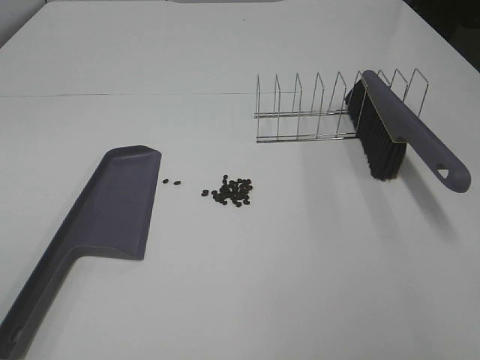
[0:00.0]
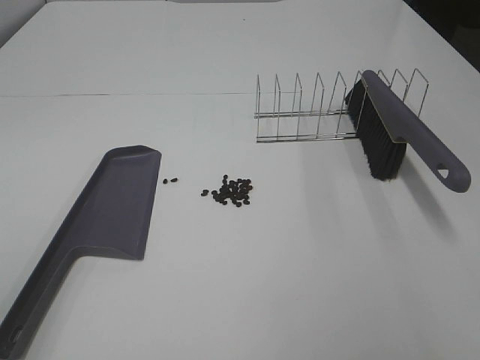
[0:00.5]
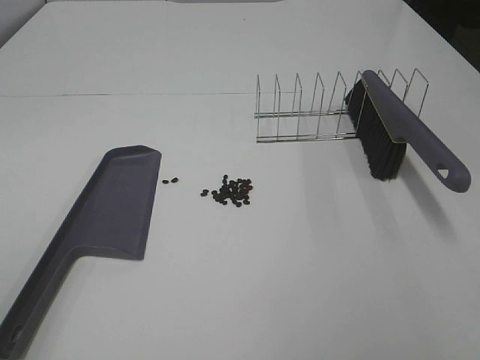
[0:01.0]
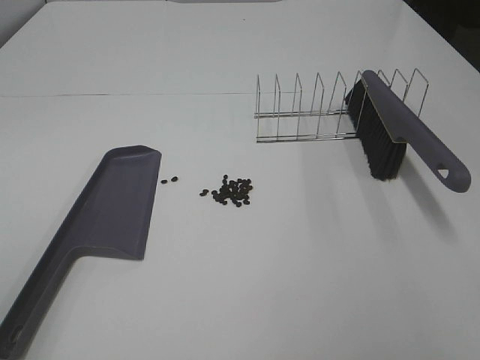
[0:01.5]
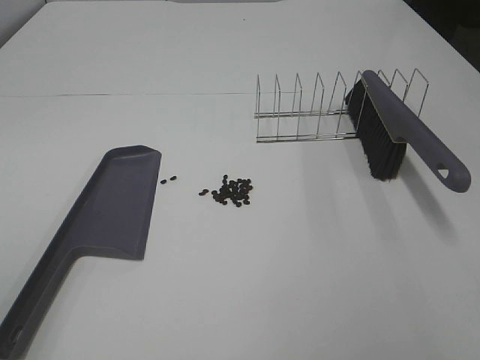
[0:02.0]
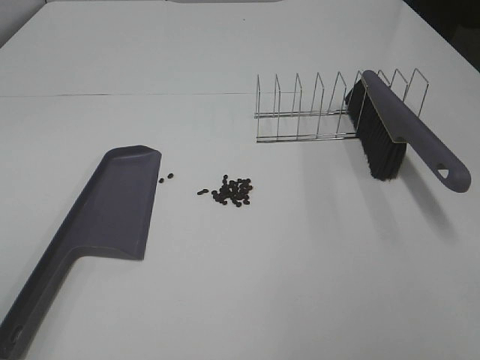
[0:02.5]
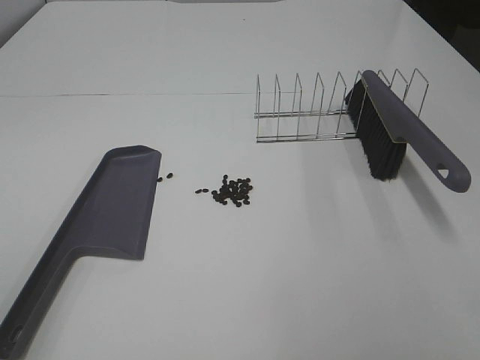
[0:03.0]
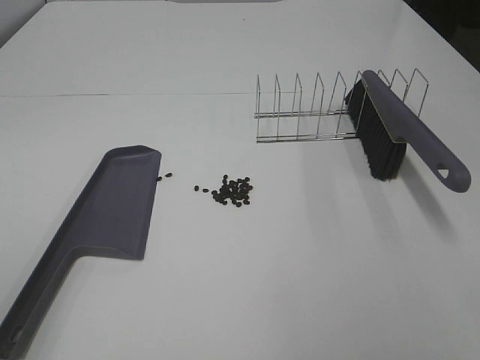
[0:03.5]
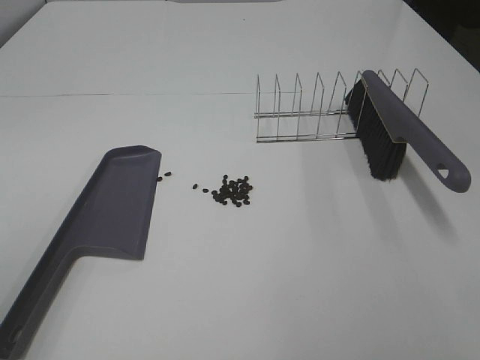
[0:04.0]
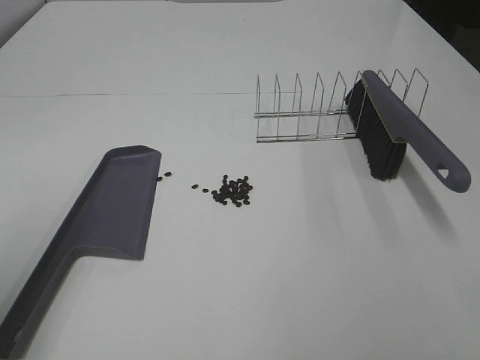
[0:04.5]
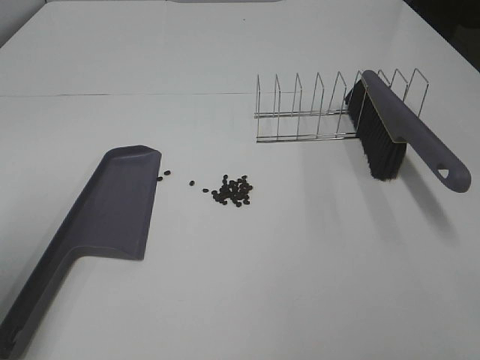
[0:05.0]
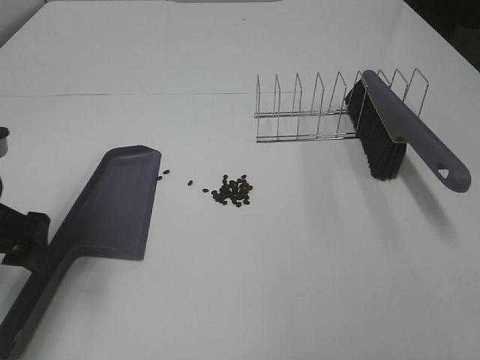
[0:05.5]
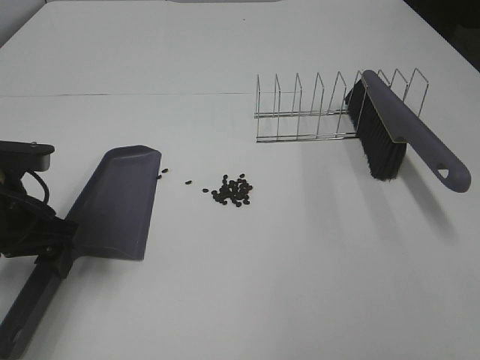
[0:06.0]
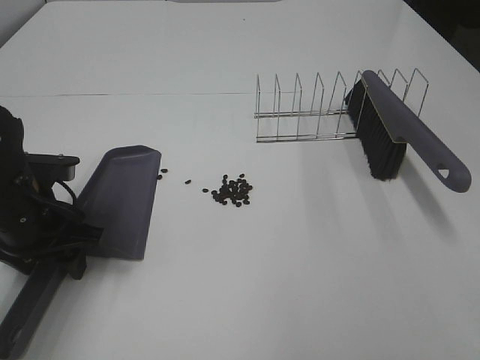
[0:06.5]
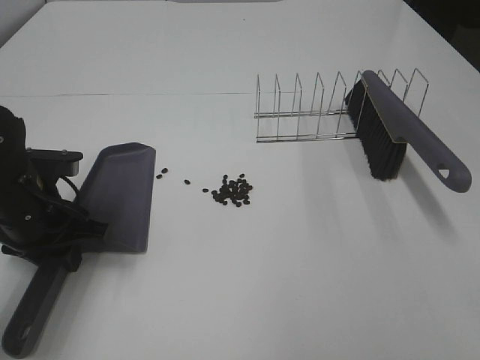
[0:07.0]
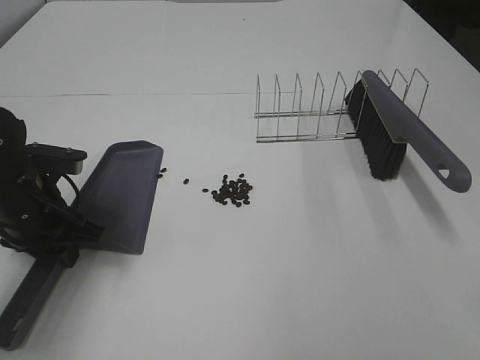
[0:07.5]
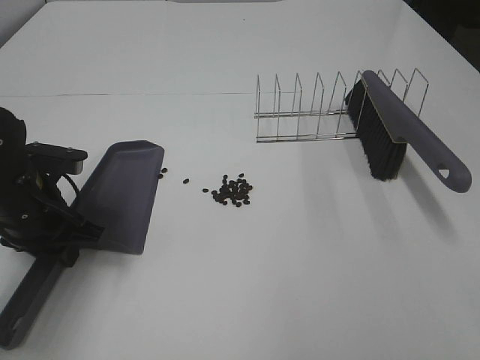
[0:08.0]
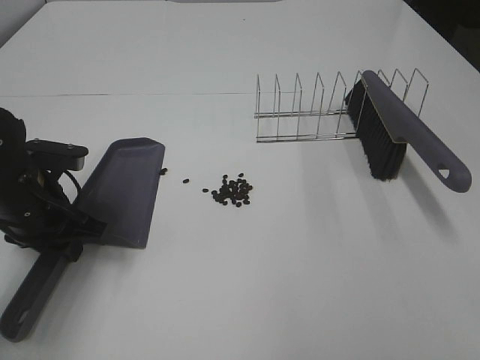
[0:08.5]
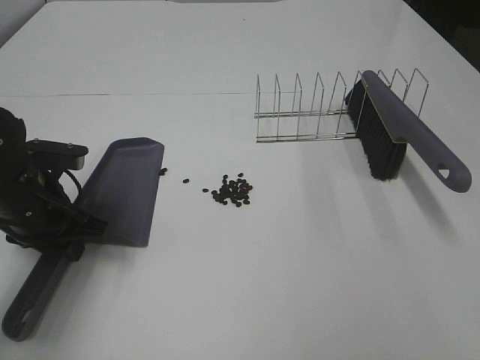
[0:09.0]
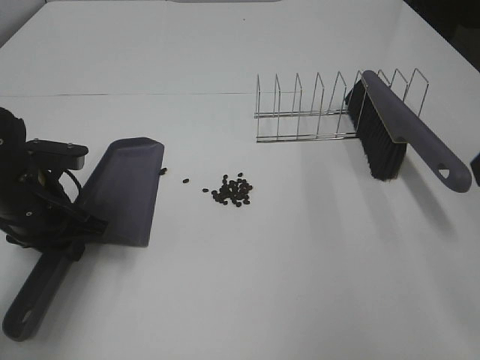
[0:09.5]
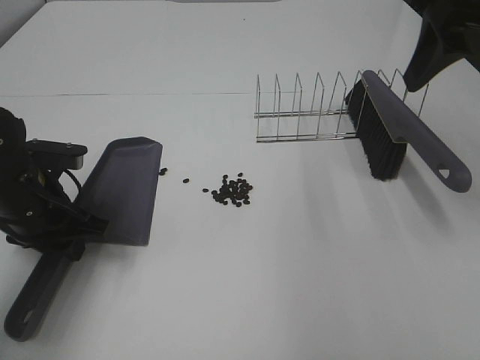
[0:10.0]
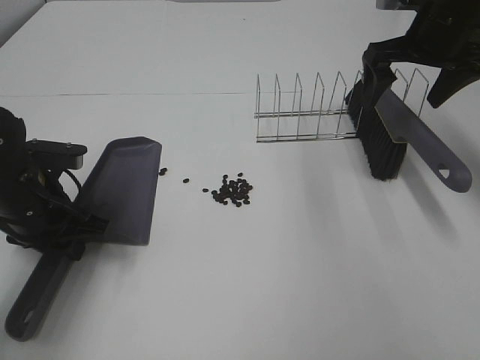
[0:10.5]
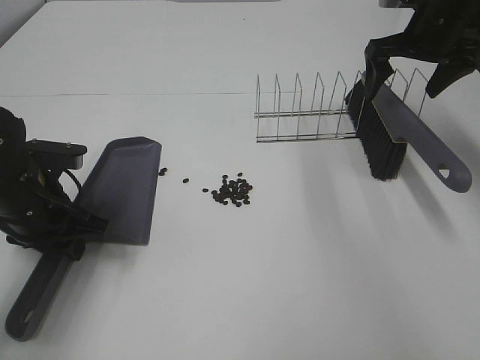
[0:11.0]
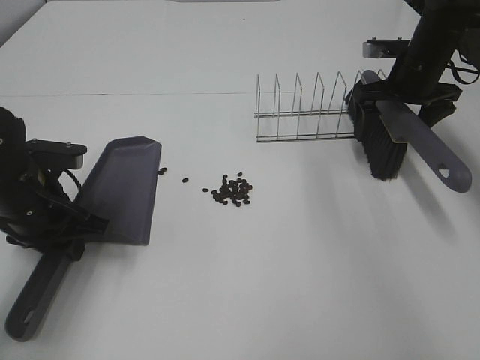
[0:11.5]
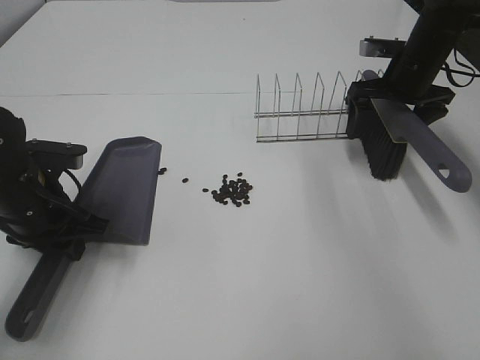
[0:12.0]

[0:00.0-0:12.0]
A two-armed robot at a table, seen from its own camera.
Task of the whole recording: Sweep Coffee Bean.
Step, 0.0 to 7.0 s: Left hand: grab the dustpan.
4.0 to 6.0 s: The left gripper shifts about 25 cm forward and downward.
6.0 to 8.0 s: The left gripper closes.
8.0 to 10.0 s: The right gripper shifts roughly 30 cm forward.
10.0 to 12.0 s: The right gripper heads downward and forward, covering some 25 cm.

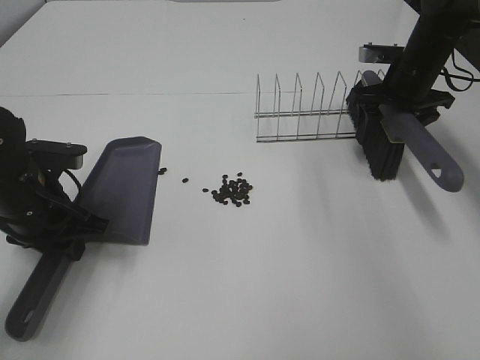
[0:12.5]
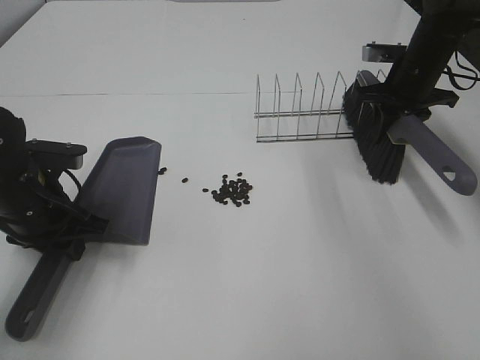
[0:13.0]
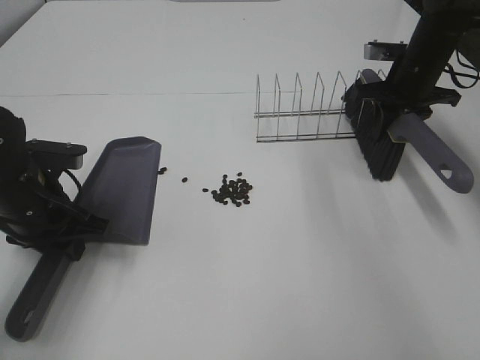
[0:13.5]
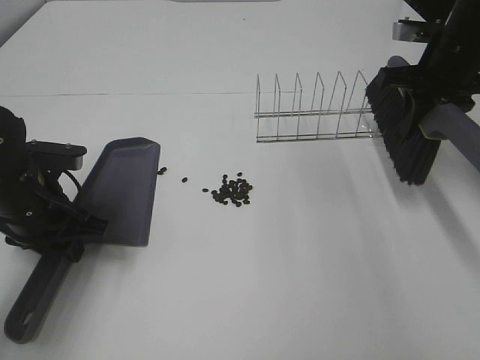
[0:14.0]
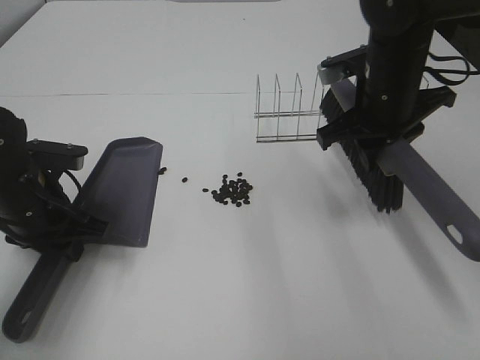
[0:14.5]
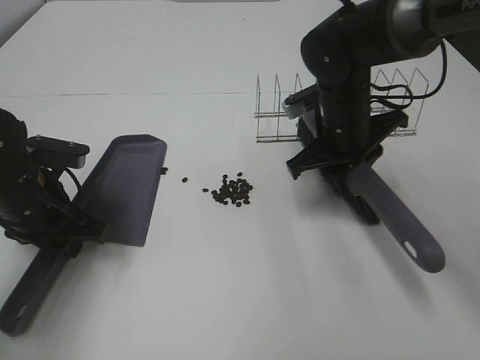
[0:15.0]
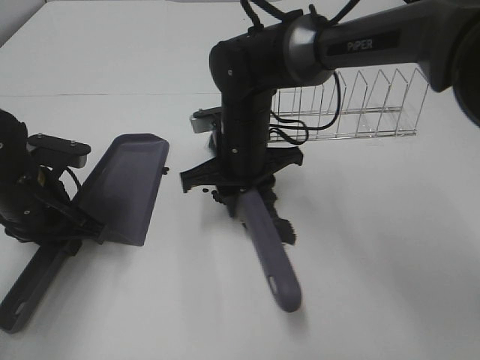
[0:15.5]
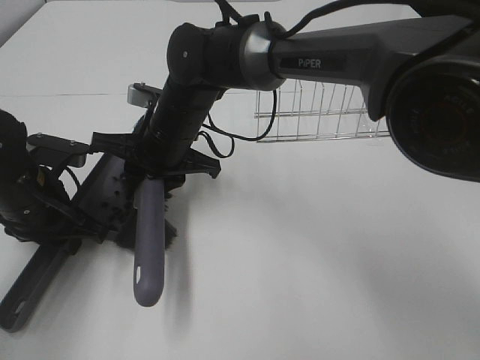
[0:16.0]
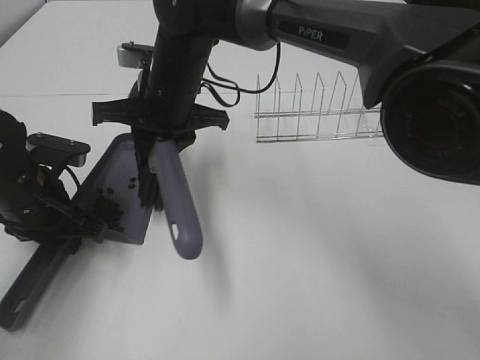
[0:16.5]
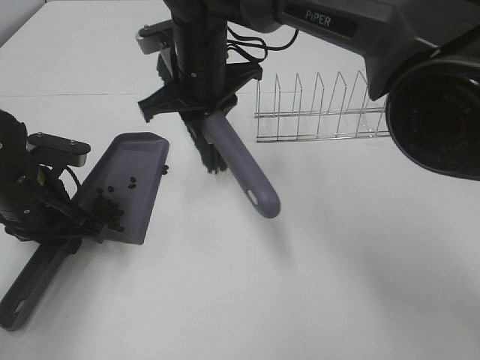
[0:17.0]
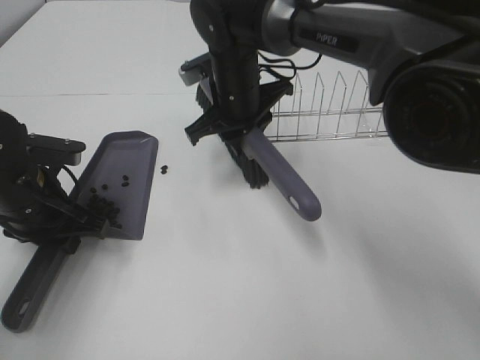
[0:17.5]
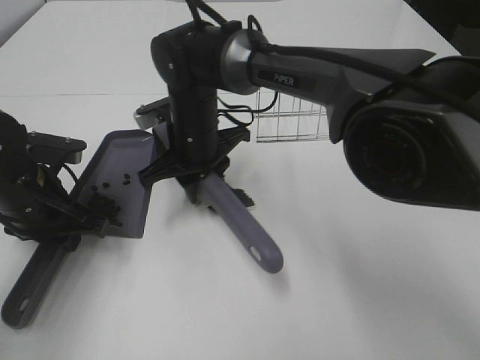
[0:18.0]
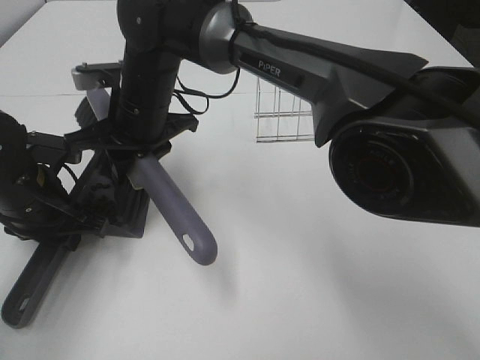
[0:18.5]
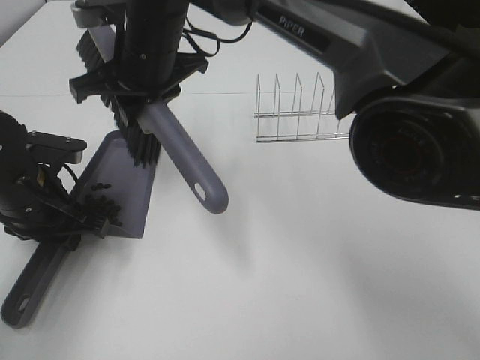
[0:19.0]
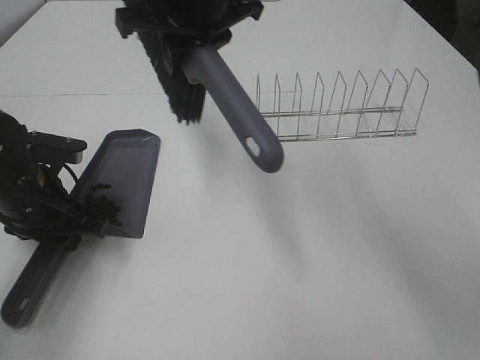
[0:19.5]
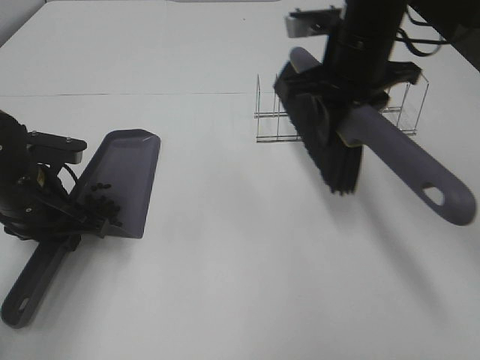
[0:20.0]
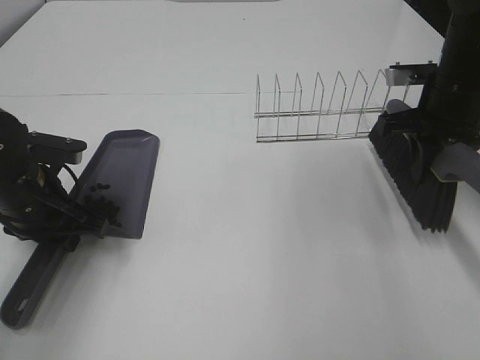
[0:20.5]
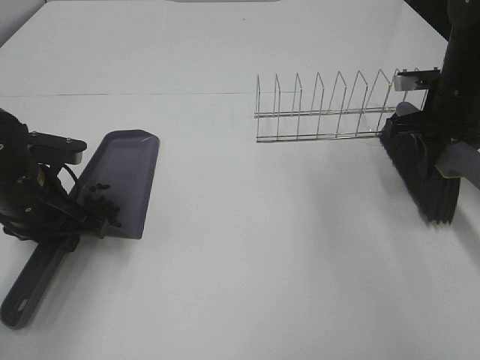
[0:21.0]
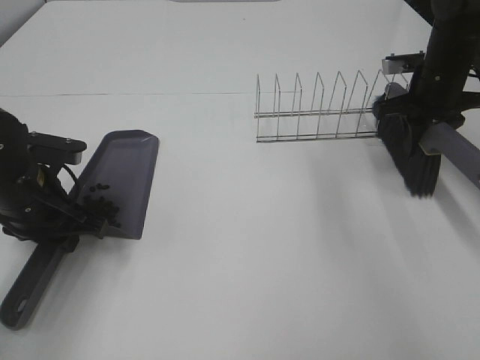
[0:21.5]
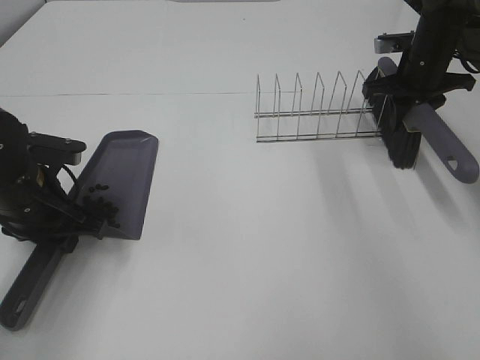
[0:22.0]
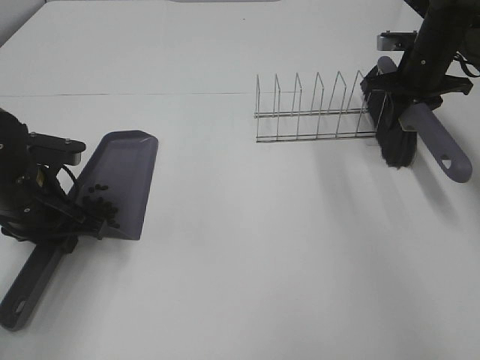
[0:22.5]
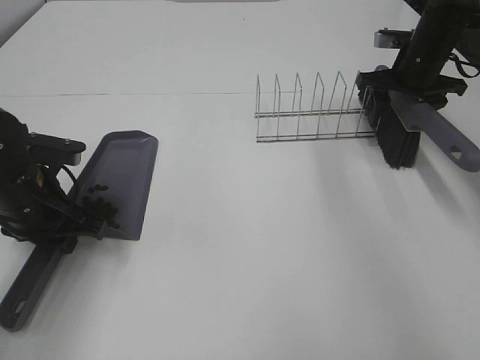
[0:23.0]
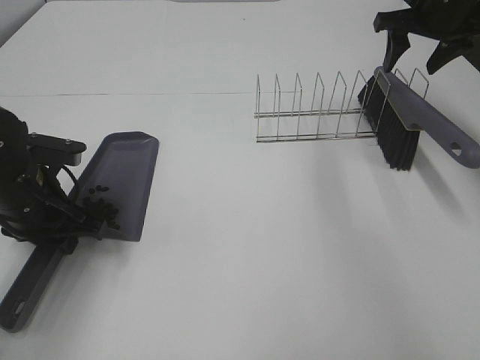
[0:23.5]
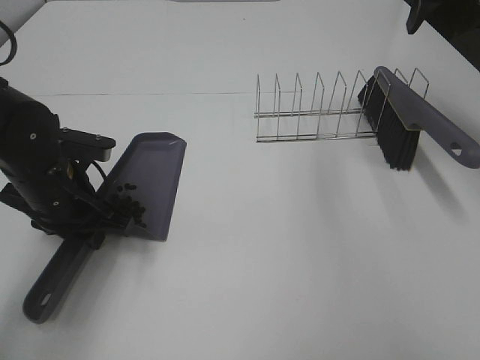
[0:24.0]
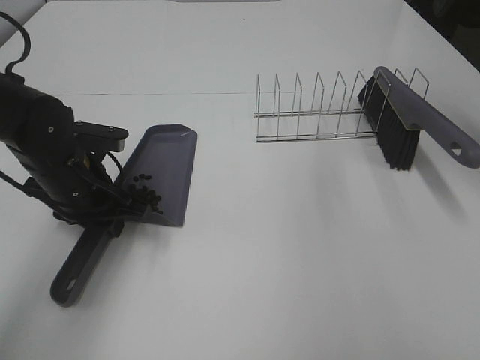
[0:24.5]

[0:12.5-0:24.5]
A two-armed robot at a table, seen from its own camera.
Task of the whole recording: Sweep Coffee Bean.
Step, 13.0 to 18.5 s: Right hand:sweep the coffee beans into the dustpan.
Step, 19.0 to 23.0 s: Right hand:place the broom on the rack.
12.5 to 14.5 s: The right gripper goes some 15 cm backward and to the left, and closes.
14.5 to 16.5 s: The right gripper travels to the left by approximately 25 cm.
16.5 to 18.5 s: The right gripper reaches about 5 cm to the right, then returns.
18.5 to 20.5 s: The right gripper moves to the right, roughly 35 cm.
20.5 to 22.5 s: The right gripper goes some 15 cm forward.
22.5 to 24.5 s: The right gripper goes some 25 cm upward and backward, and opens up, while the left gripper moves about 5 cm.

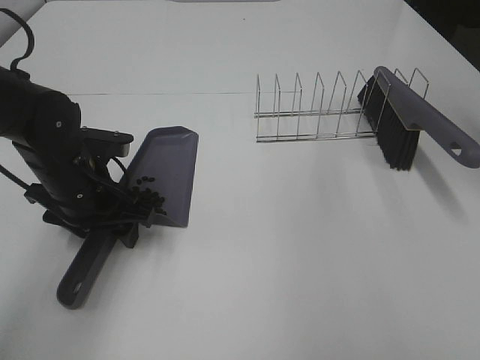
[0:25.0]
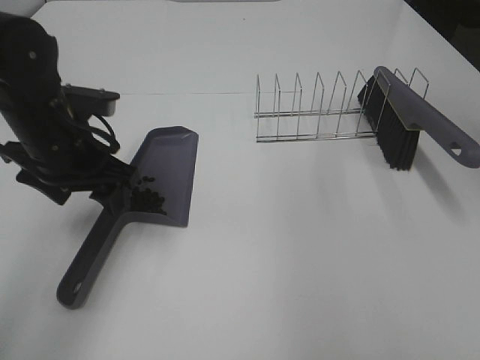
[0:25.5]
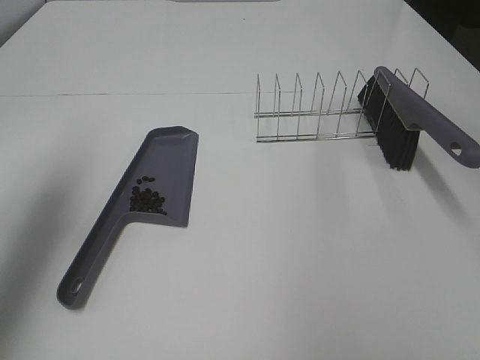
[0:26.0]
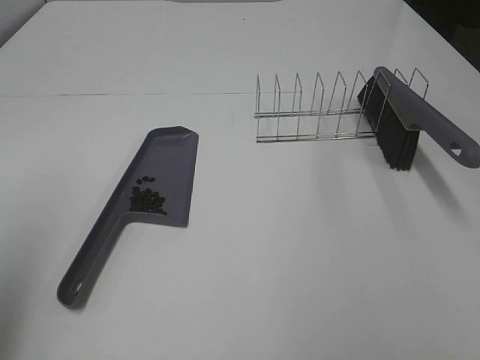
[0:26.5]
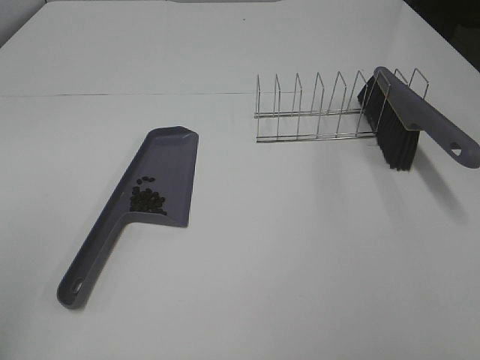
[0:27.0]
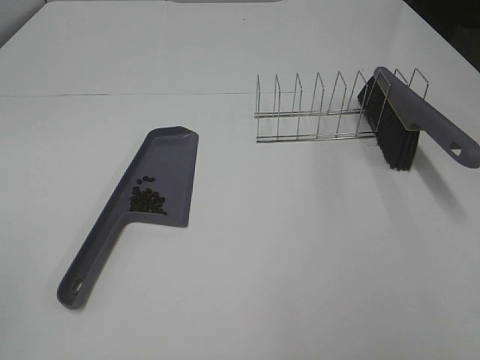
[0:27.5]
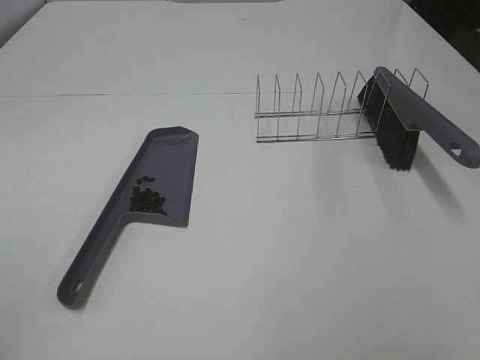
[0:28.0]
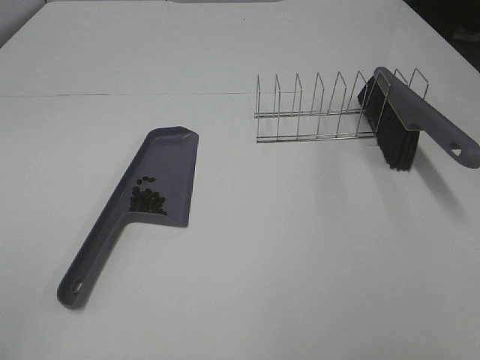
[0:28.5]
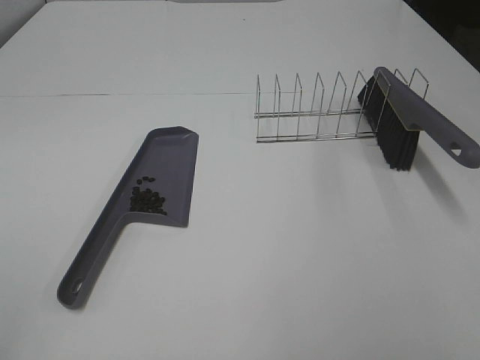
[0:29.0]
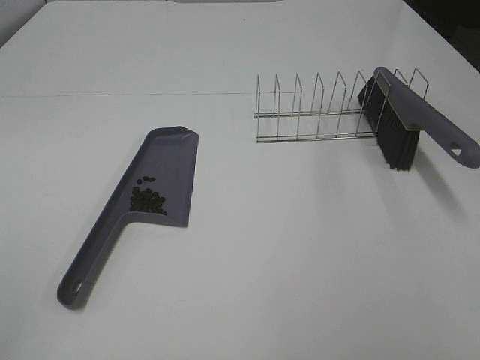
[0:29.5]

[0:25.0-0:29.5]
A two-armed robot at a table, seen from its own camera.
Task of the whole recording: Sweep Coffee Bean.
25.0 to 27.0 s: The left gripper goes about 40 cm backward, upward and to the left.
